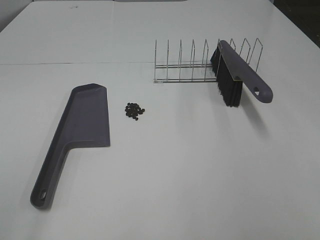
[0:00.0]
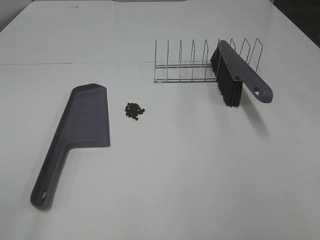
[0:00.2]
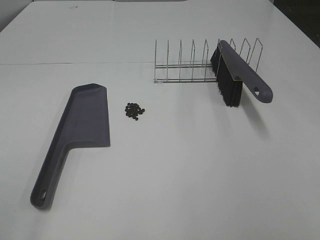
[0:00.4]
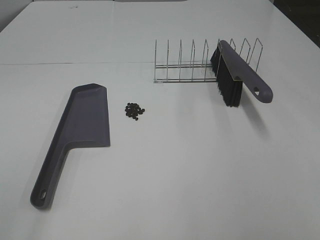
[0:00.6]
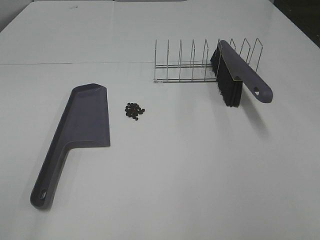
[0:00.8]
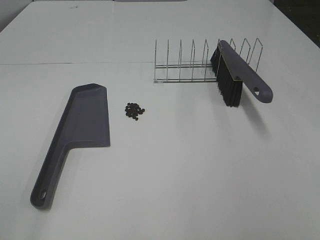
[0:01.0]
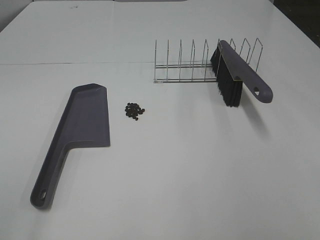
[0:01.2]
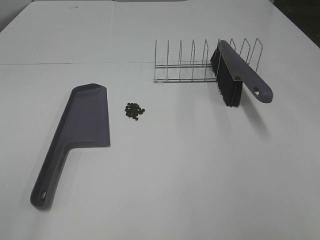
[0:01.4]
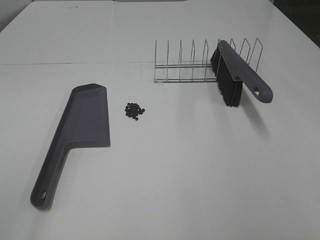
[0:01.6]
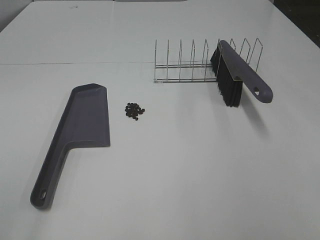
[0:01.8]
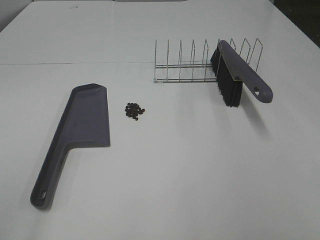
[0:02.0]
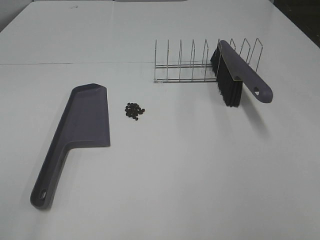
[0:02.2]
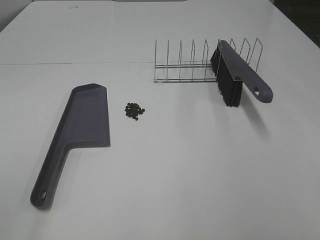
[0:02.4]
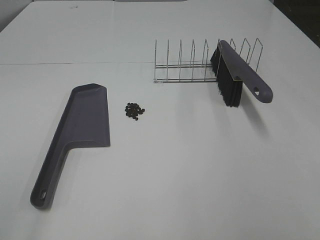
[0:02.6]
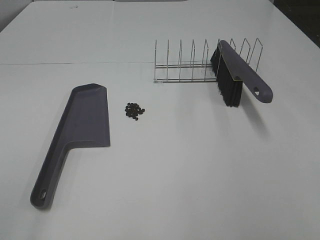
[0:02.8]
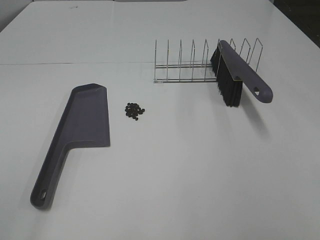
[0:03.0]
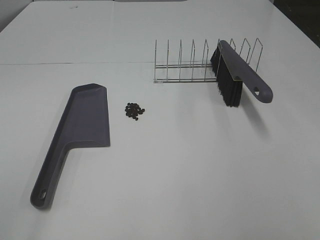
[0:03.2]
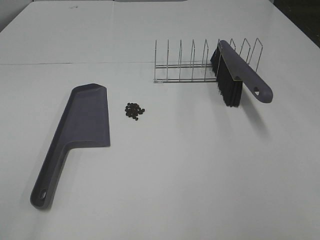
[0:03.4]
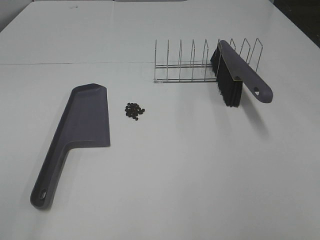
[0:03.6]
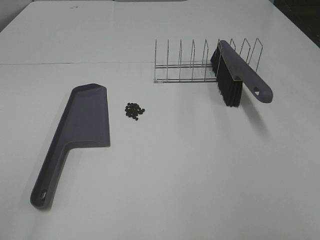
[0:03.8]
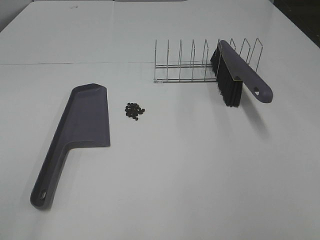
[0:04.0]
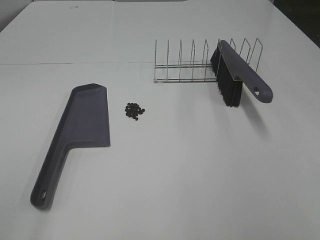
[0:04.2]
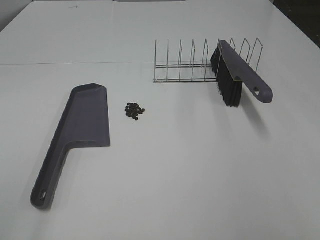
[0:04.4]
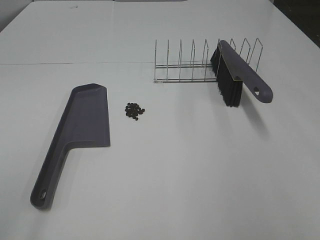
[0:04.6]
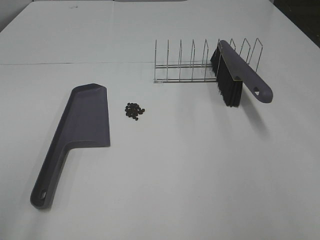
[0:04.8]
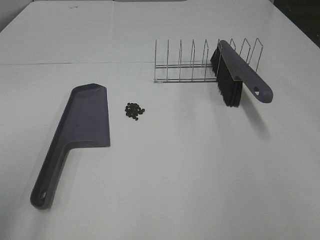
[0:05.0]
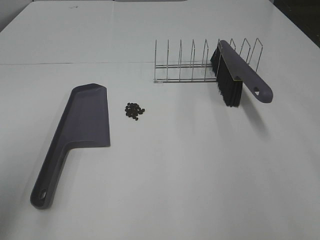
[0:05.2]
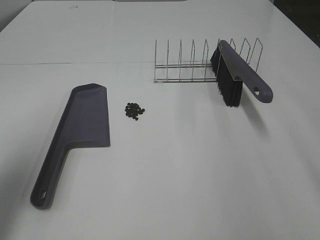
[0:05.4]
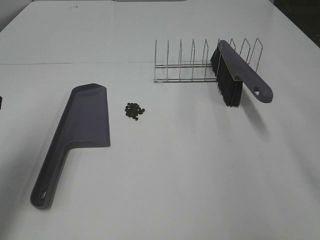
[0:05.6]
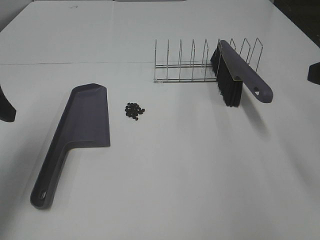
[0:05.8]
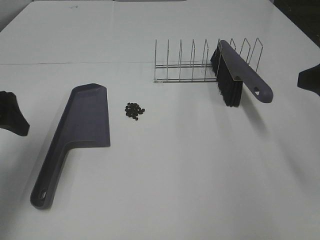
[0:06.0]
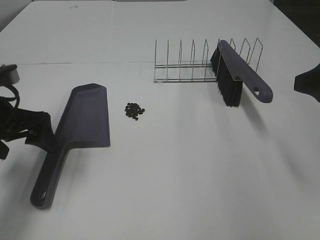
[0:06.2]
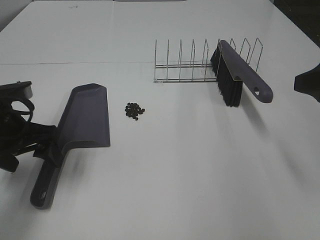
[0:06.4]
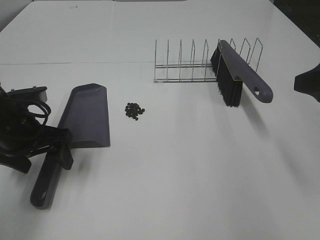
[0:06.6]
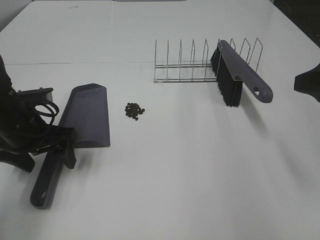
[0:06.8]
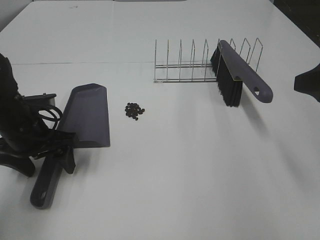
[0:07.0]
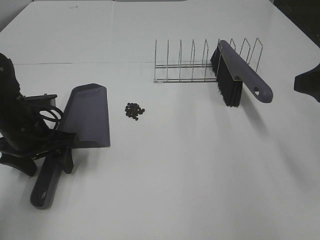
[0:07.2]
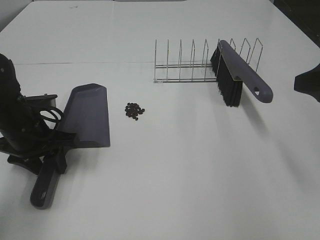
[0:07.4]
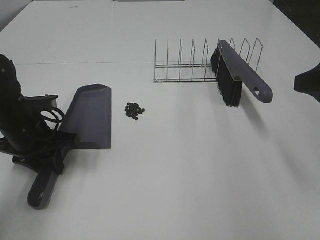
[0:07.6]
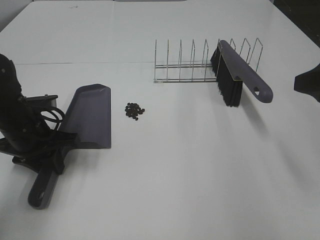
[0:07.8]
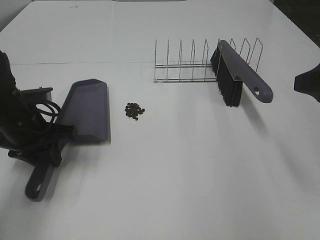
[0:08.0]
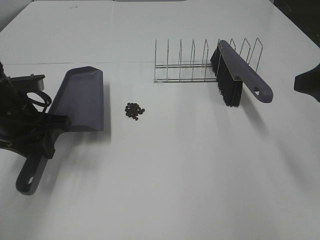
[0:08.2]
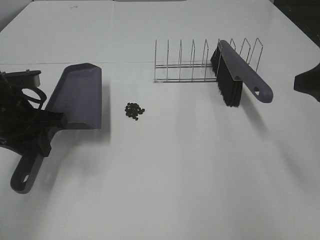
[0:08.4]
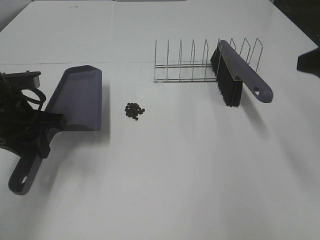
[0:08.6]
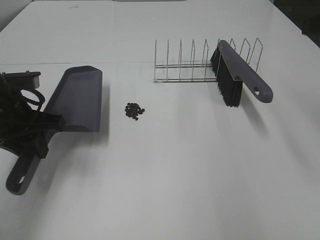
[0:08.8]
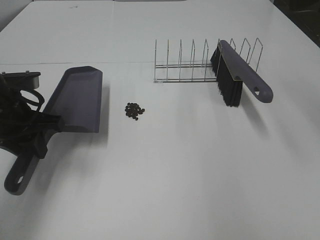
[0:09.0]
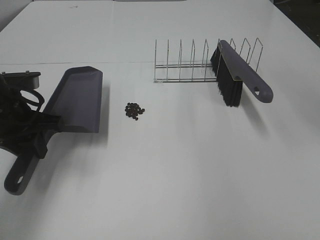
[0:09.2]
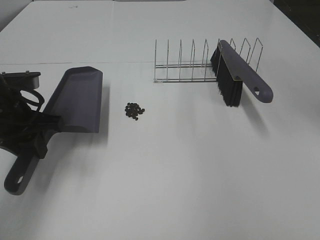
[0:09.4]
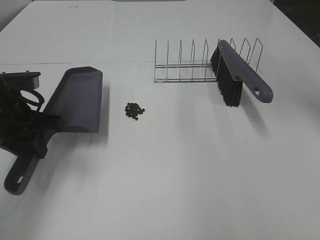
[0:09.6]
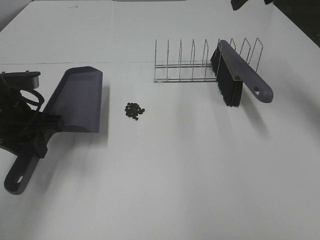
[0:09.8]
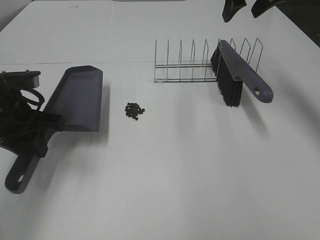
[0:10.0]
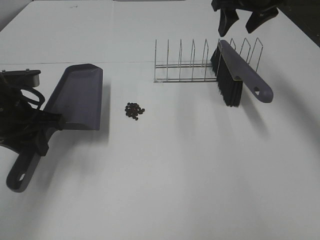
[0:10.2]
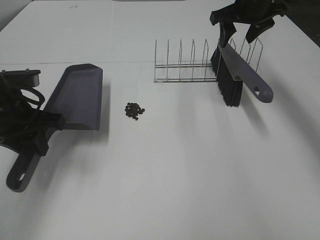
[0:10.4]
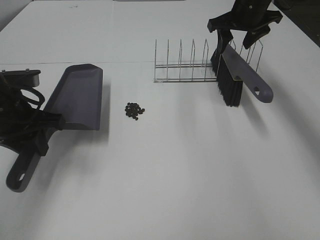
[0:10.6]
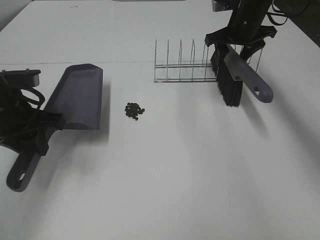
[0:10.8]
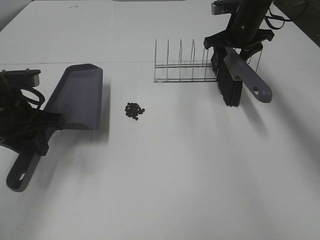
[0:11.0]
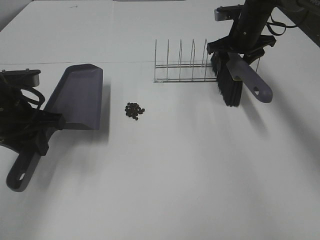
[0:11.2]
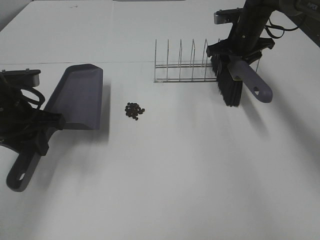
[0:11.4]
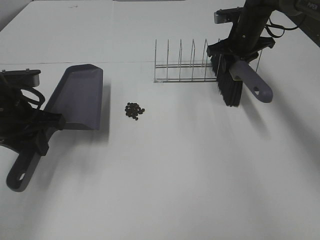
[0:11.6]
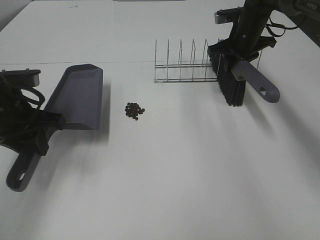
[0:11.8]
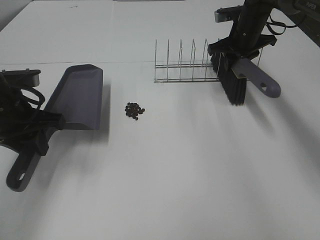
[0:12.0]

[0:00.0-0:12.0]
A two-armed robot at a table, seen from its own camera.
Task of the whole recording: Sweep Coffee Bean.
Step, 0:00.0 to 0:07.6: Left hand: grab the dustpan.
Step, 0:08.6 to 0:11.6: Right hand:grab the broom.
0:00.0 to 0:03.0: Both grippers stay put.
0:04.4 to 0:06.0: The right gripper moves forward, roughly 15 cm, while the left gripper is displaced forward by approximately 25 cm.
0:06.0 to 0:07.6: The left gripper shifts some 10 cm downward and to the right, and closes.
0:07.6 to 0:09.0: The right gripper shifts roughly 10 cm upward and forward, while the left gripper moves upward, approximately 5 cm.
0:09.0 to 0:10.4: The right gripper shifts roughly 25 cm forward and downward.
0:10.4 to 0:12.0: The right gripper goes approximately 10 cm downward, and closes its fingers.

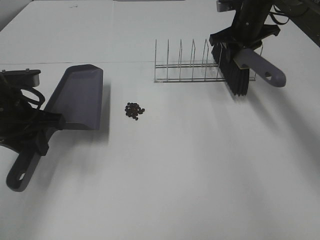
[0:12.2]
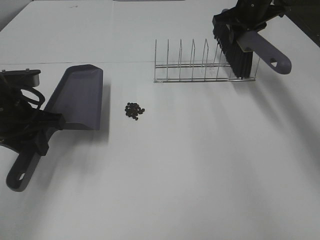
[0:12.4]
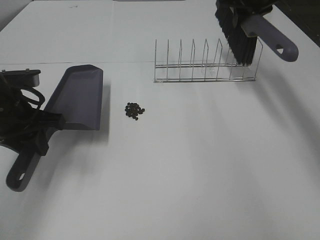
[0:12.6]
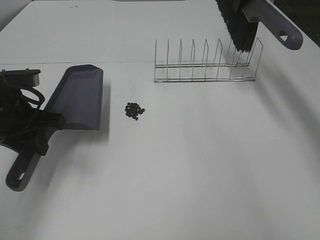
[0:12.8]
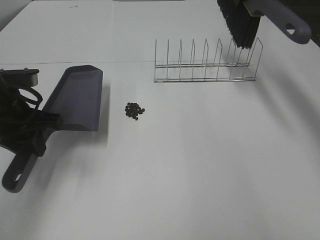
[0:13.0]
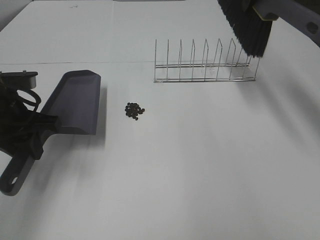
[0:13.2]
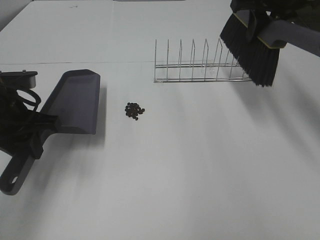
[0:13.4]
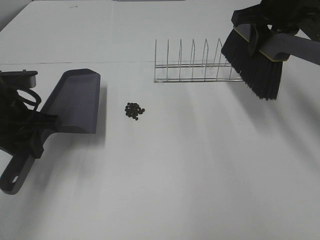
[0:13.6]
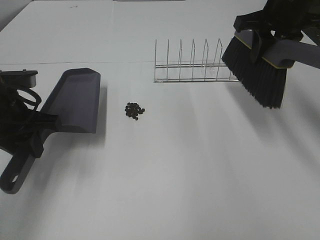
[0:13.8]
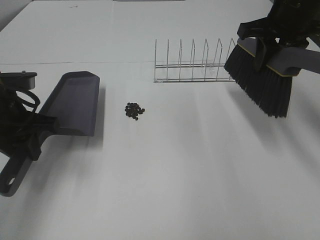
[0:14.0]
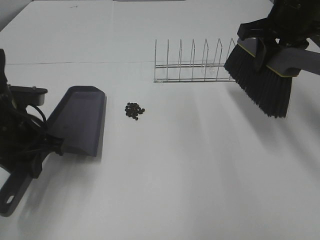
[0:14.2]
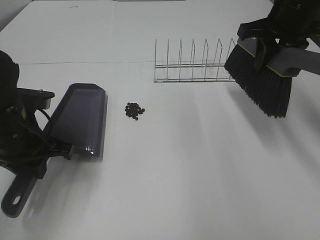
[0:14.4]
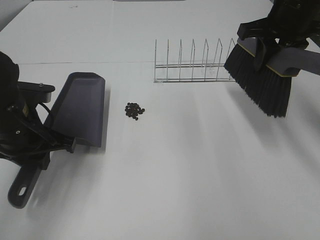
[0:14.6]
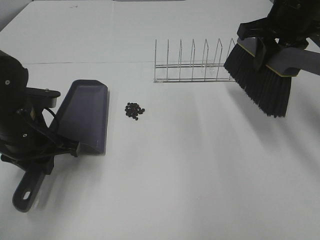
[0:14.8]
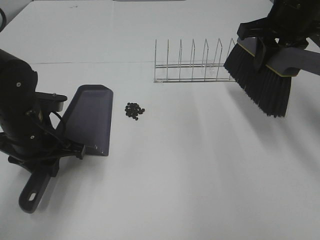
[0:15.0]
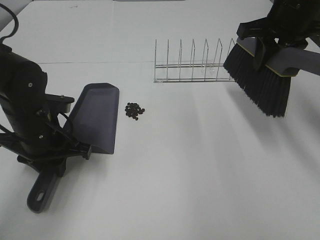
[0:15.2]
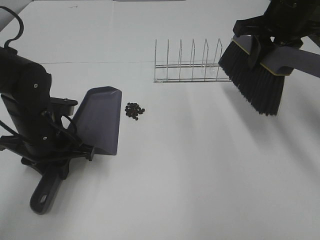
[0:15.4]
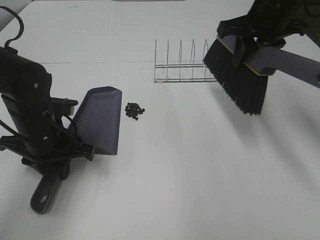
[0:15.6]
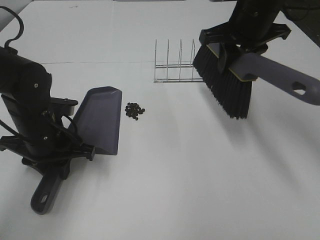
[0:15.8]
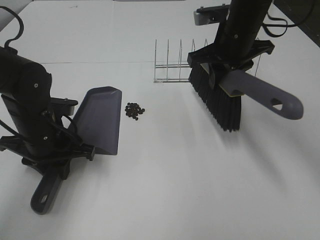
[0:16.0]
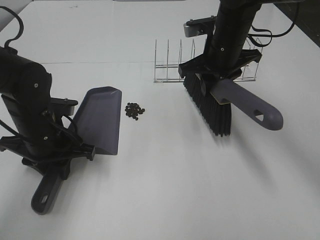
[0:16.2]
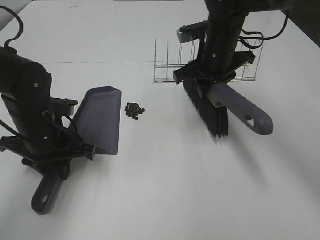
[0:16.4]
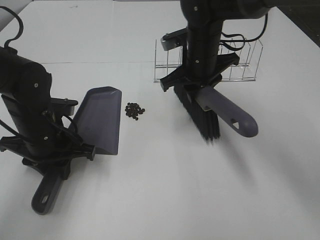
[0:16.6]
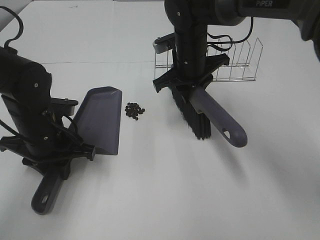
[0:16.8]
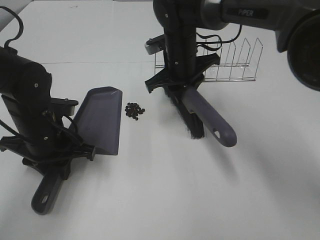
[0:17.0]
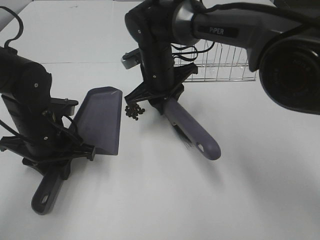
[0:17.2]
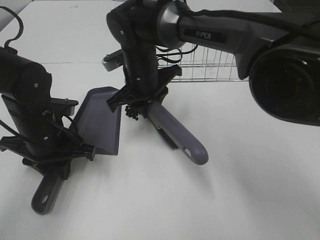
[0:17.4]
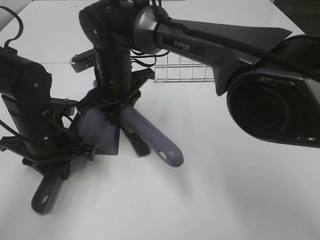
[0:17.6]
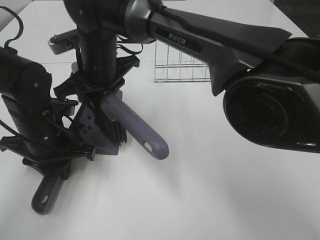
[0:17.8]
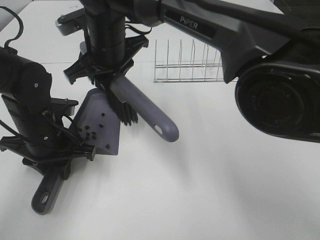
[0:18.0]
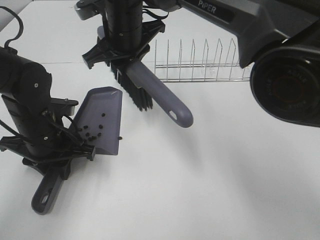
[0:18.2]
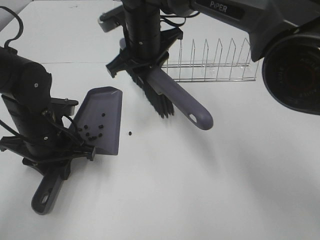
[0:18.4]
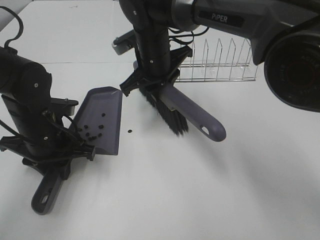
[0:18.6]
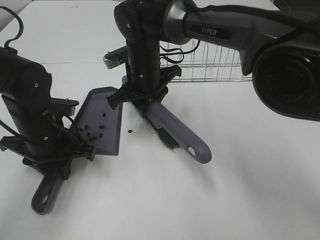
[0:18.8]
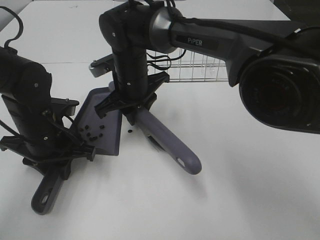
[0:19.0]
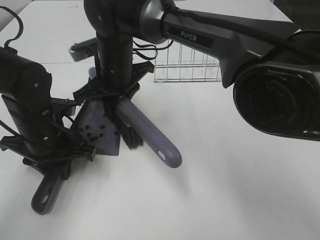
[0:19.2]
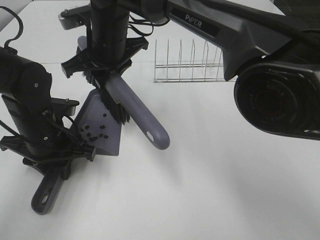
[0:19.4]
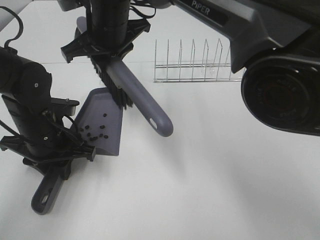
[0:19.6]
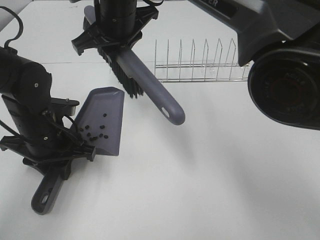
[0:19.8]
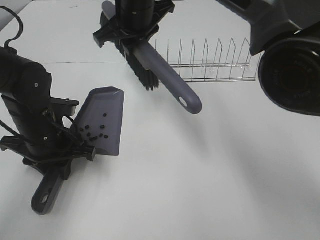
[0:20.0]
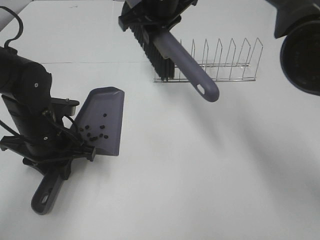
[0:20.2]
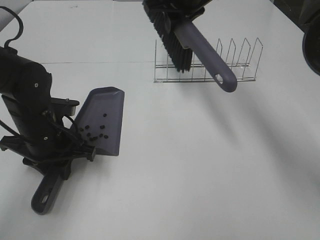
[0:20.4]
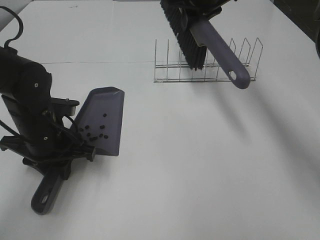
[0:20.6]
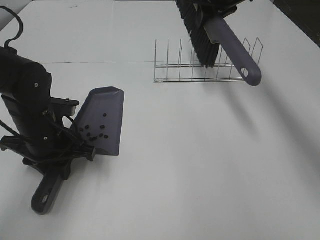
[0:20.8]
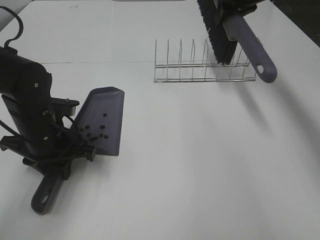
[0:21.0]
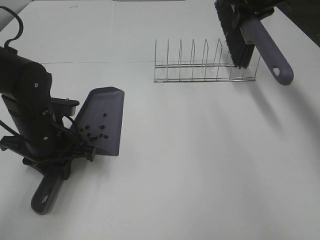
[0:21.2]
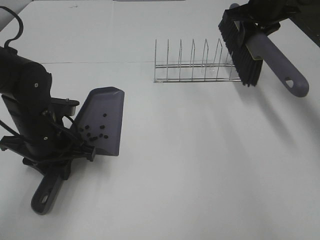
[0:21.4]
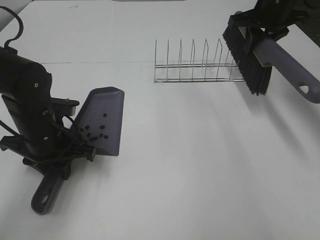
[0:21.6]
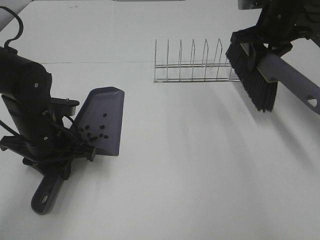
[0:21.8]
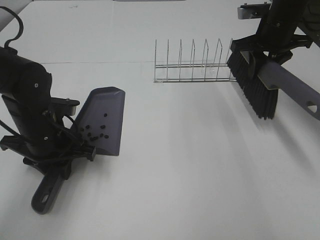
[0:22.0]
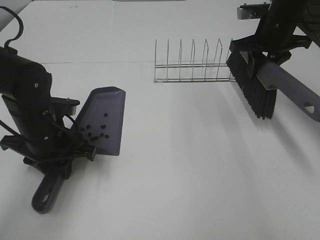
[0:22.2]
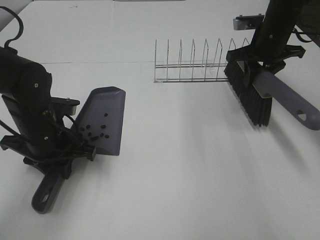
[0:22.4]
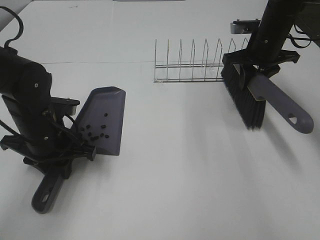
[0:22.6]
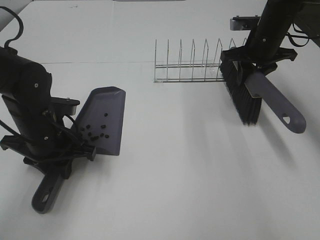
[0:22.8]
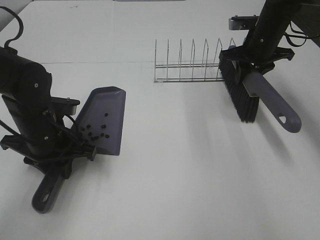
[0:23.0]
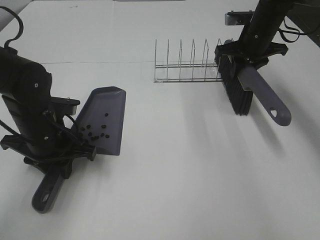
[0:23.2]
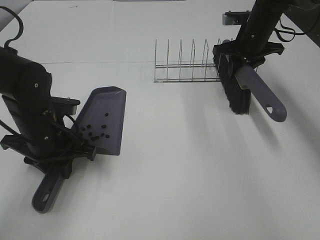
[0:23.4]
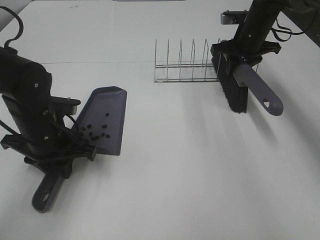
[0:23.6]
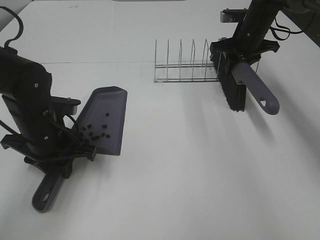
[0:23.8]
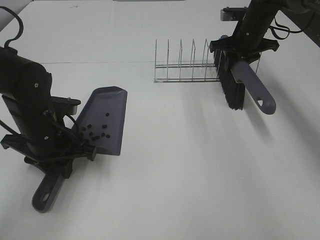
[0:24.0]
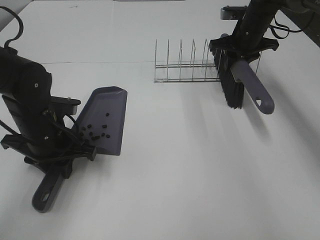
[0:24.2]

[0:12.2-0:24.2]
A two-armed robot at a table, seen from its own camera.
Task of the whole recording: Sweep Coffee Bean.
Step, 0:12.2 to 0:16.4: Left hand: move the dustpan to the left side of the coffee beans.
Step, 0:12.2 to 0:19.2: Right hand:sweep the coffee beans into the dustpan.
0:12.2 to 0:13.8: The right gripper heads backward and upward, covering roughly 15 cm.
0:13.8 to 0:15.2: The left gripper shifts approximately 5 cm downward.
0:15.2 to 0:16.6: The right gripper shifts about 15 cm to the left and downward.
0:16.6 to 0:18.2: The right gripper is displaced to the left and upward by roughly 15 cm.
0:18.2 to 0:19.8: The right gripper travels downward and back again, some 10 cm each way.
0:19.8 to 0:21.2: The right gripper heads to the right and forward, covering about 30 cm.
0:21.2 to 0:22.6: The right gripper travels downward and backward by about 10 cm.
0:22.6 to 0:24.2: The right gripper is displaced forward by about 5 cm.
